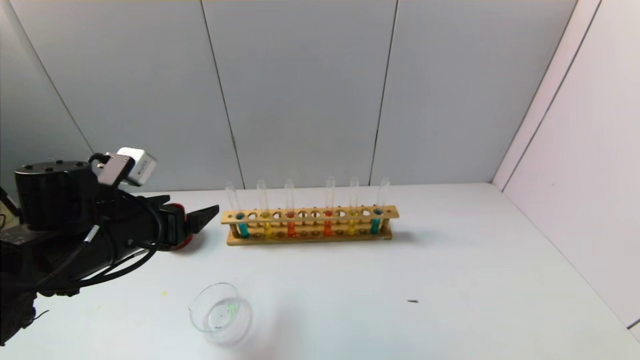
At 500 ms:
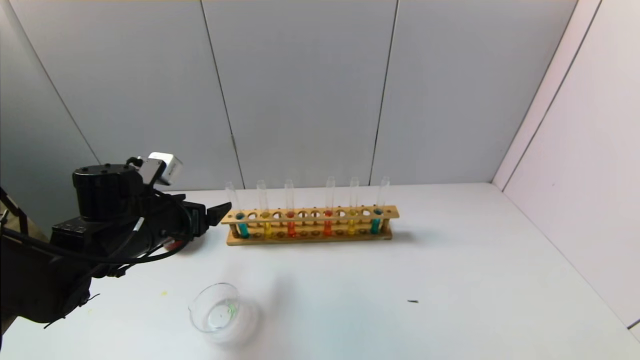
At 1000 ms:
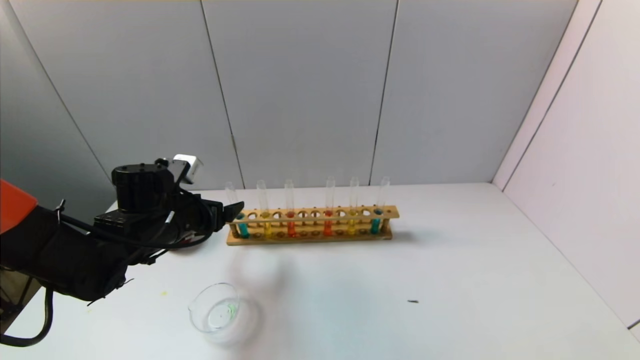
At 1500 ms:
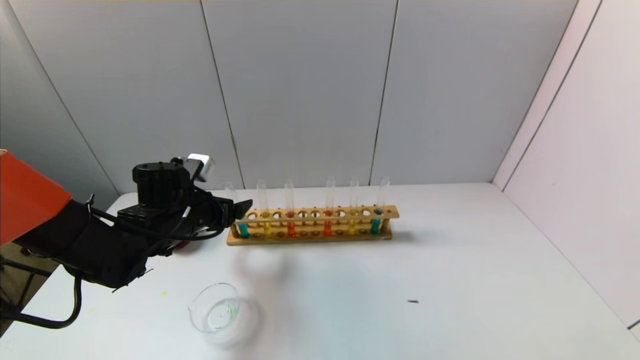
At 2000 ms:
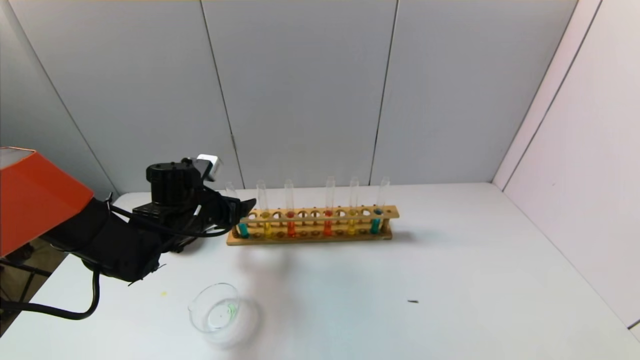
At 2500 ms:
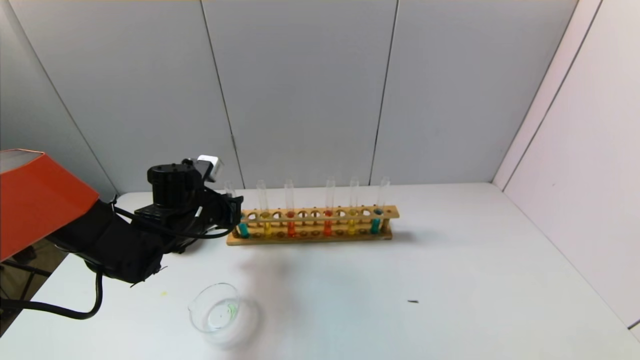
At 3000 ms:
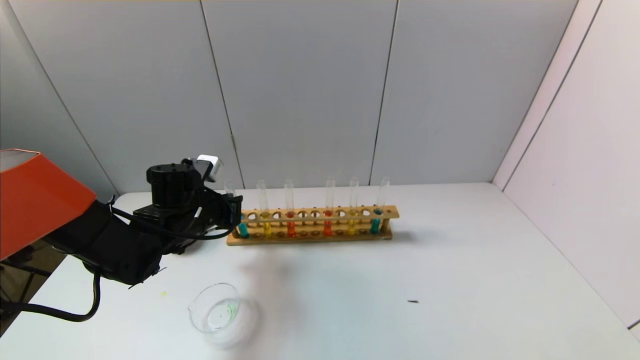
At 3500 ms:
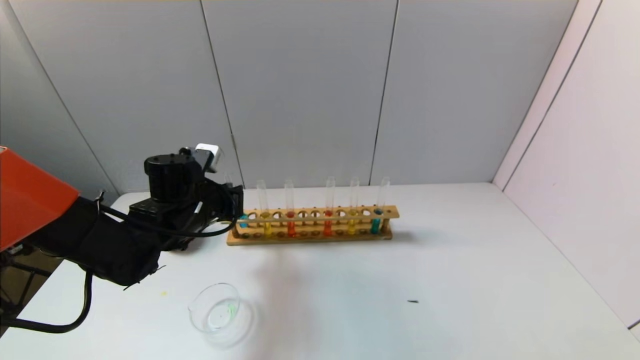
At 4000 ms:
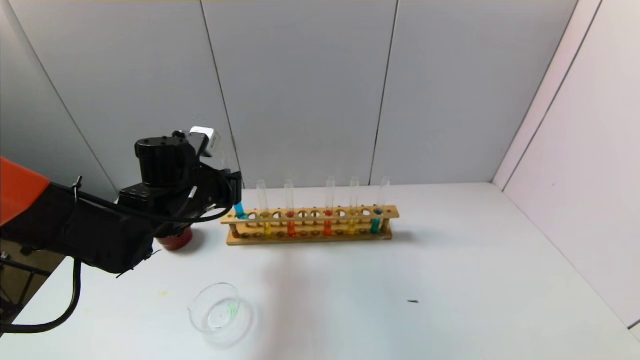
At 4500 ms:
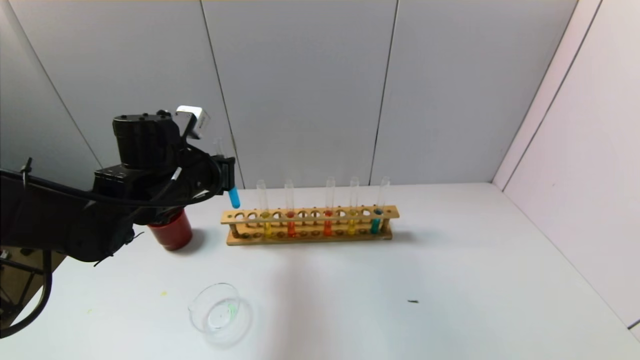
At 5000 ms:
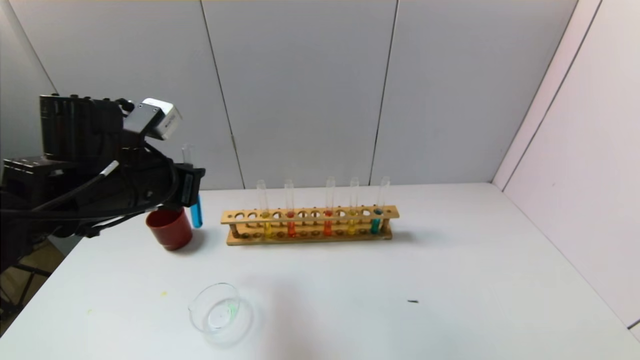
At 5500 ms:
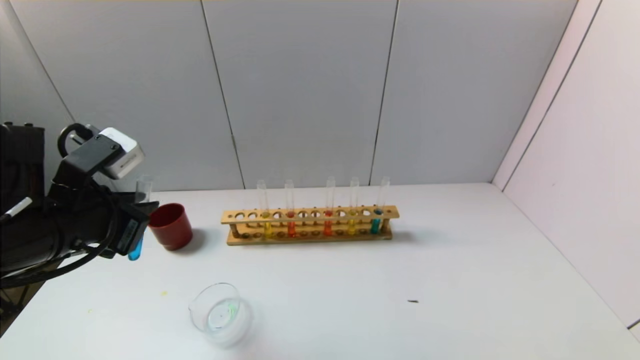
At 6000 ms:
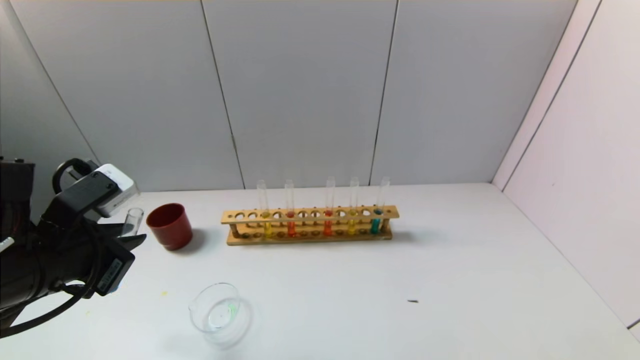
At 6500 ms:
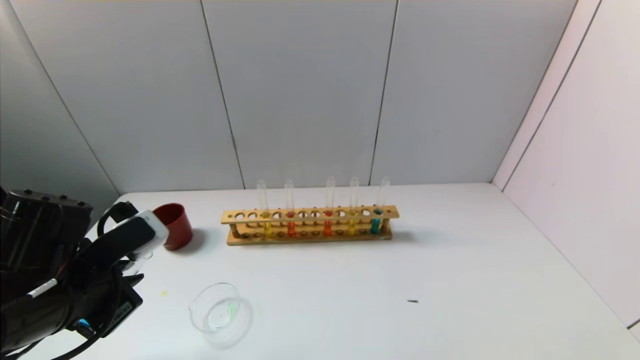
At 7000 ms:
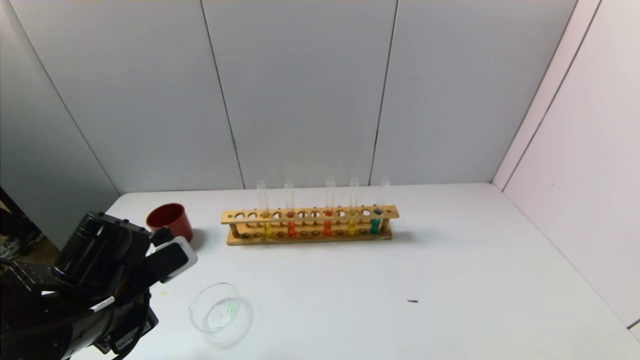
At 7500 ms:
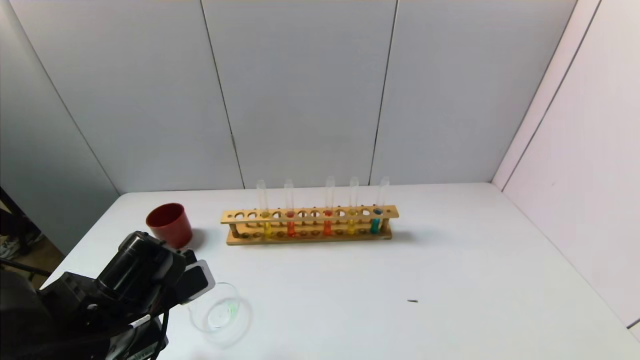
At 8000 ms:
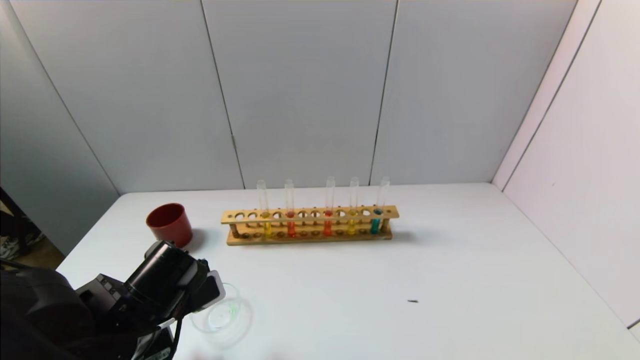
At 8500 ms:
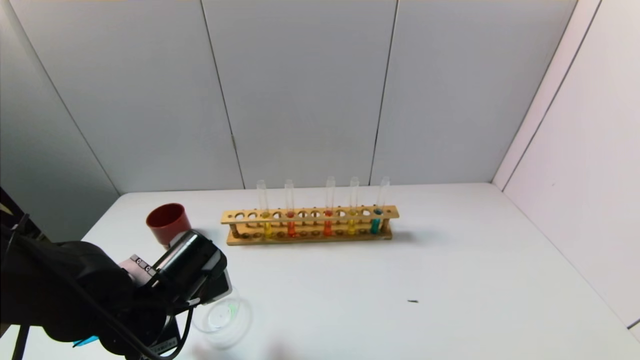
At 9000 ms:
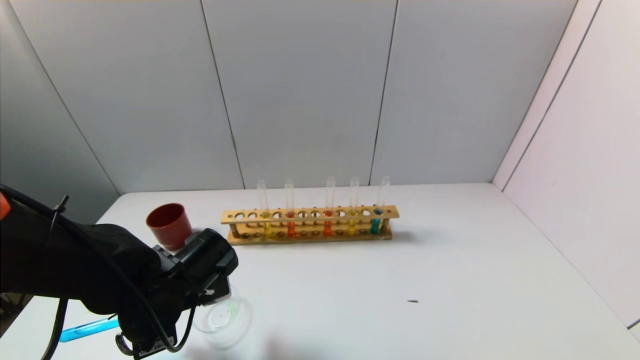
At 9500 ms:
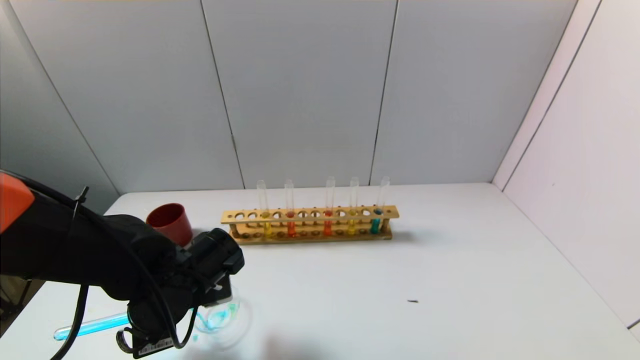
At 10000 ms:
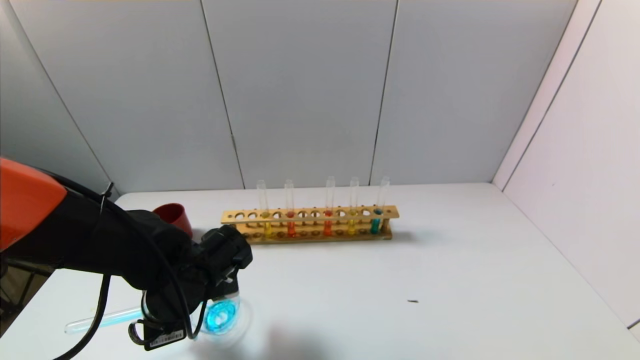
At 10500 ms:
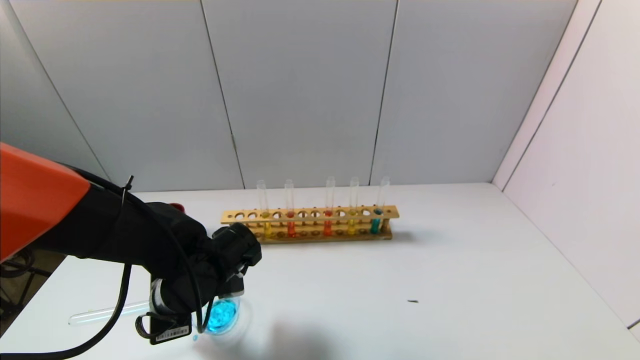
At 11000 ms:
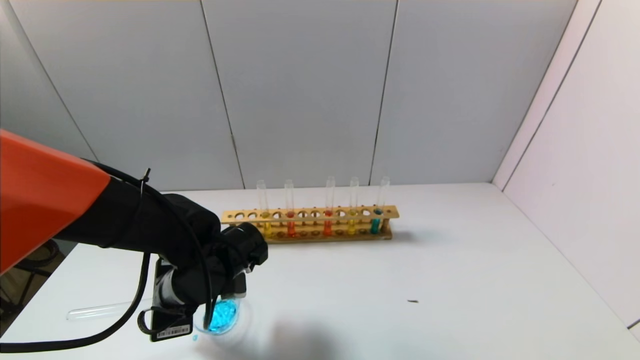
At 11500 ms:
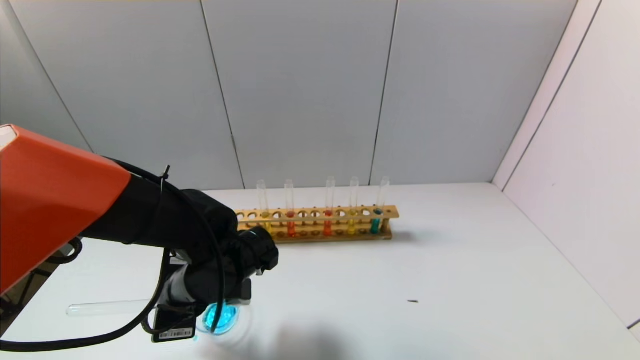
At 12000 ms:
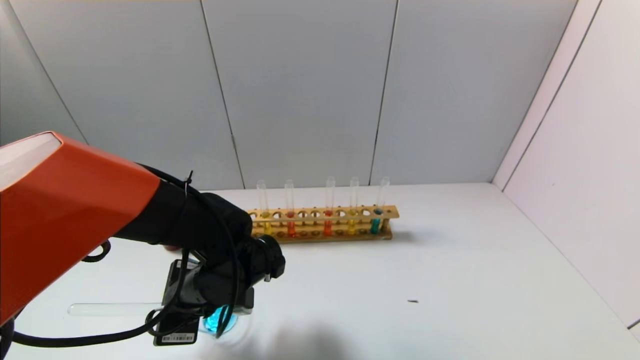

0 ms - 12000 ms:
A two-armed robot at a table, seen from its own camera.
Task of the whole recording: pick up the test tube with yellow pigment and the test tube with blue pigment by grippers and pour them into the beaker.
Step, 0 ms - 2500 ms: Grasp the blue reagent with the left gripper.
0 ms - 2000 ms: The left gripper shifts roughly 10 cm forward and downward.
2000 ms - 4000 ms: The left gripper is displaced upward by roughly 5 cm, and closes.
4000 ms - 6000 ms: The left gripper is displaced backward and to the left by some 15 cm.
6000 ms - 8000 ms: The left gripper travels downward and to the right by approximately 10 cm.
8000 ms - 10000 ms: The left gripper changes place by roughly 5 cm.
10000 ms - 12000 ms: There are only small adjustments of the grippers.

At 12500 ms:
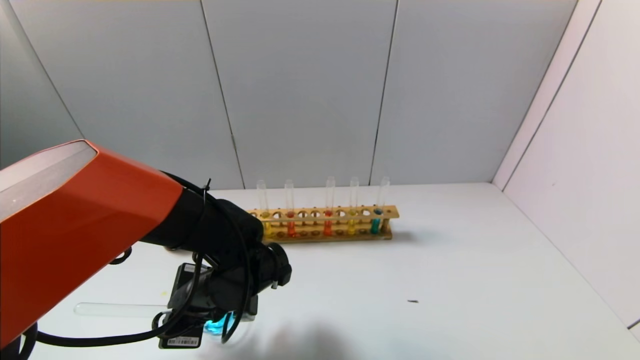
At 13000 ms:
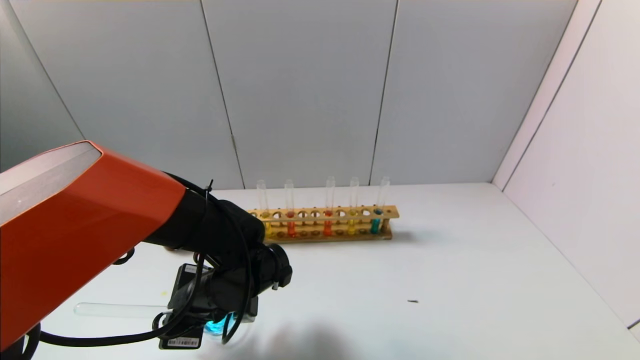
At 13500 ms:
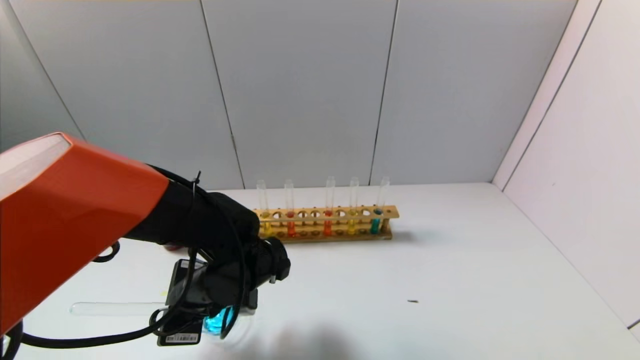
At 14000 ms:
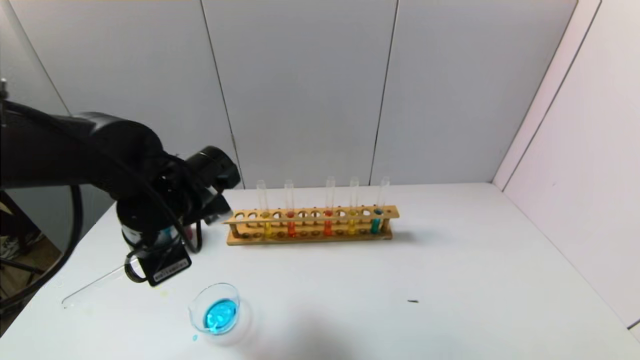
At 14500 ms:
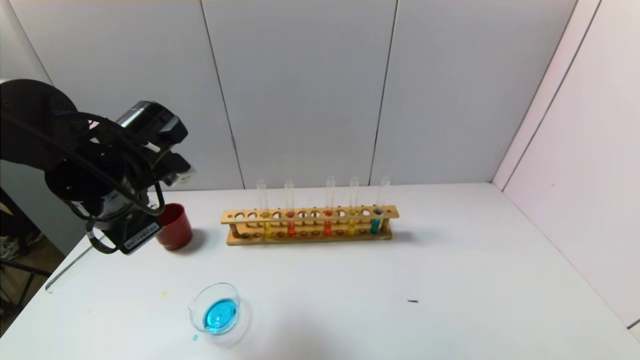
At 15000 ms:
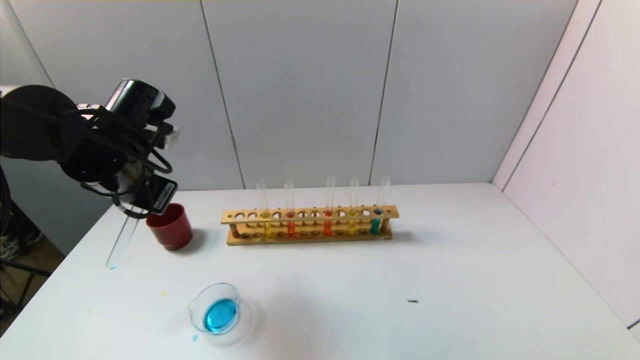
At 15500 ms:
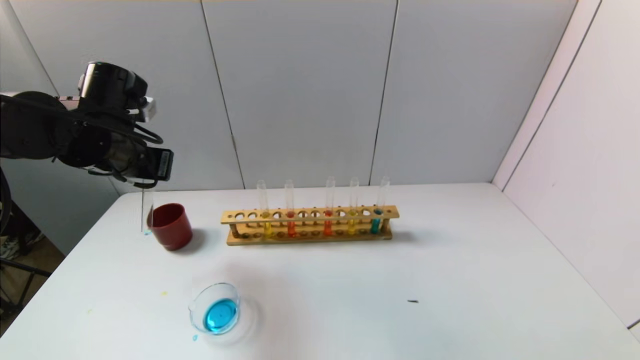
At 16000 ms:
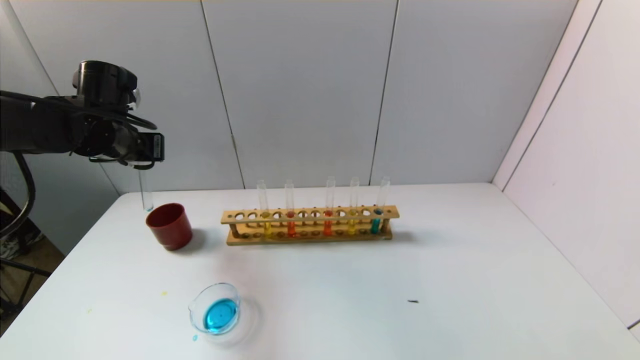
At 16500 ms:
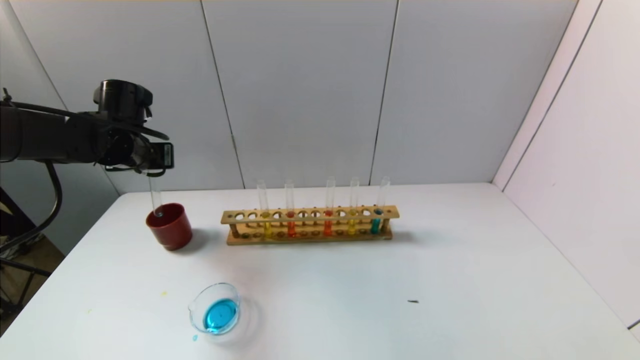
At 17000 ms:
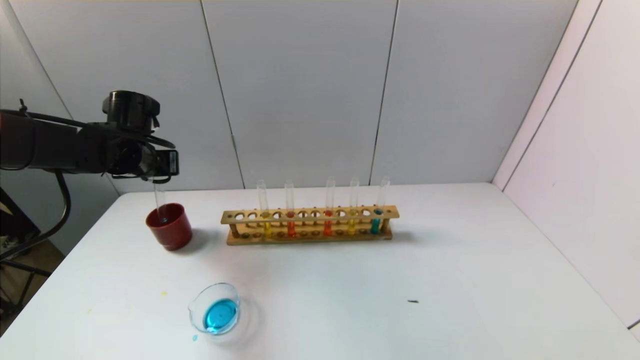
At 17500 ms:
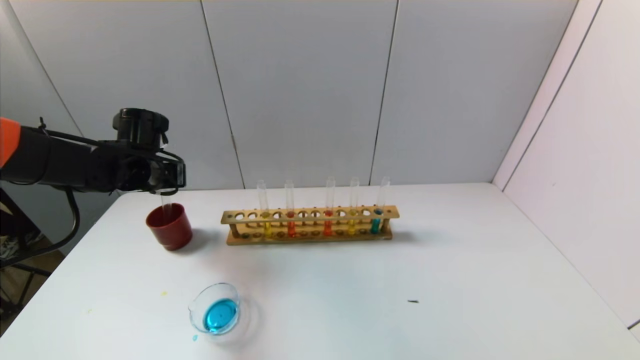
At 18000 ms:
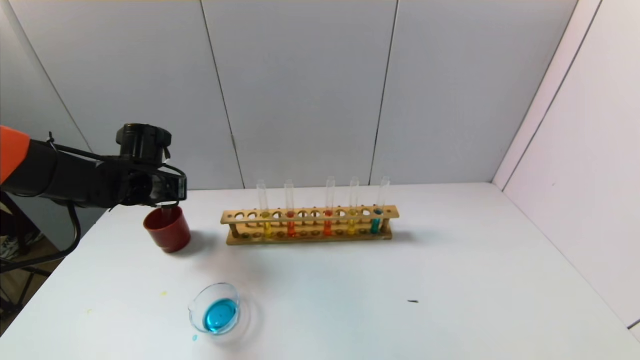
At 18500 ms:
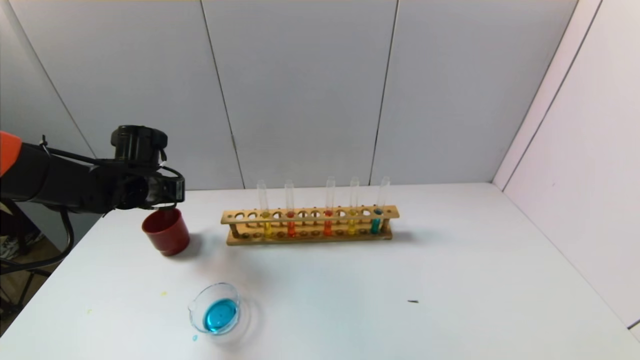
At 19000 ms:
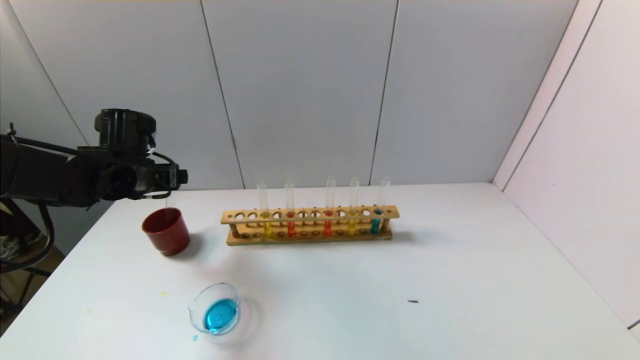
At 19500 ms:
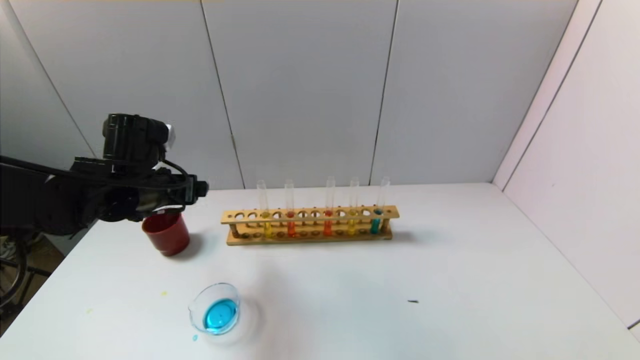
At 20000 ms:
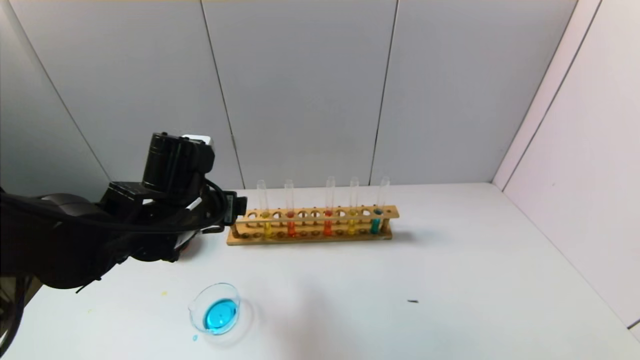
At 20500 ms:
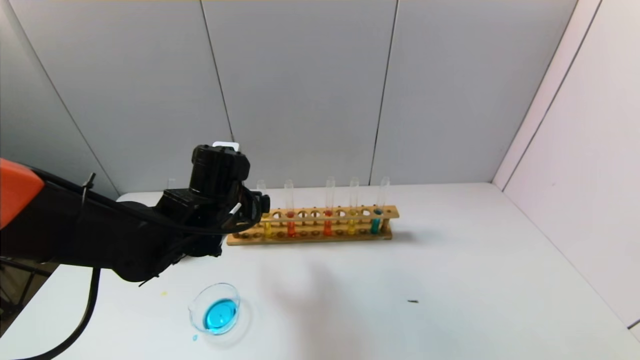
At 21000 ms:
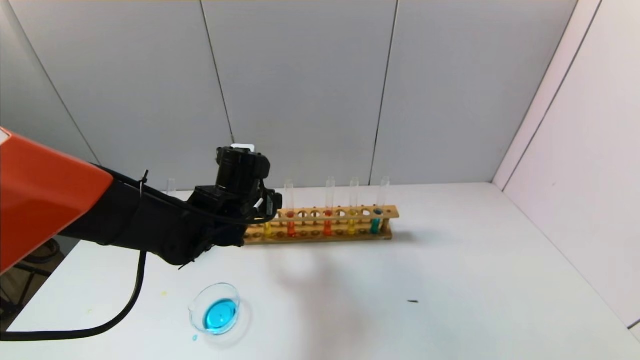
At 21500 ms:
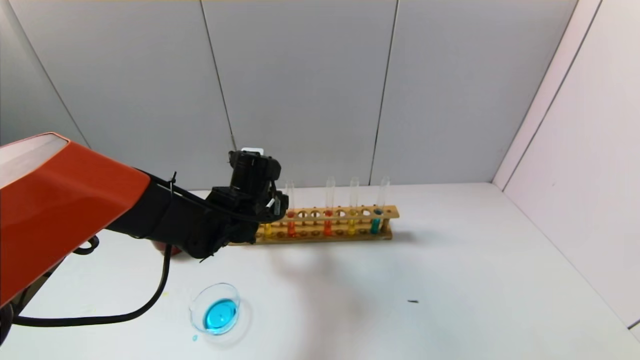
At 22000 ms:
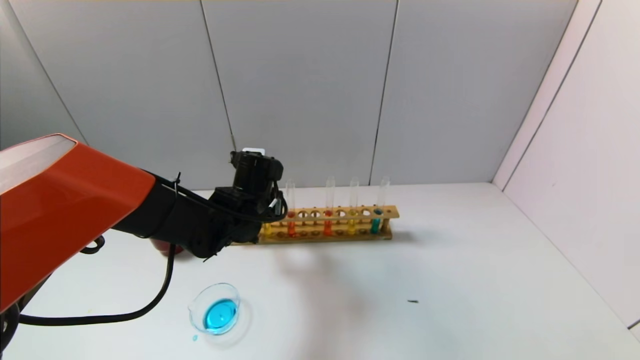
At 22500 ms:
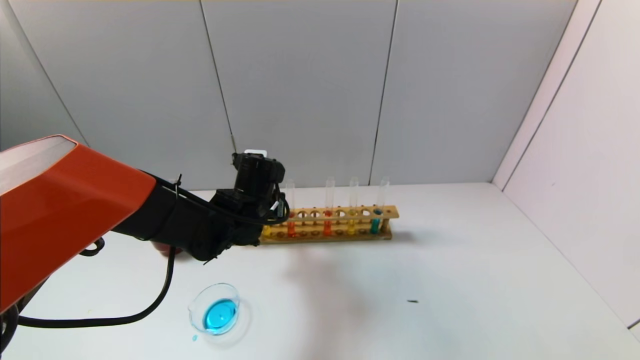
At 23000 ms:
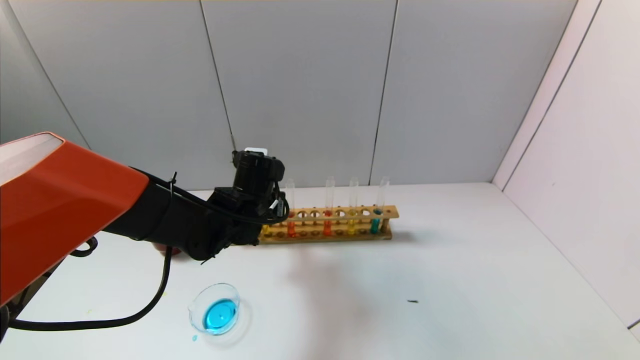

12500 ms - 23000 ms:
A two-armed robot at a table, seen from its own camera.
Task of the whole recording: pick up the test tube with yellow pigment and the test tube with blue pigment by grippers and pour them into the beaker.
Step, 14000 ms - 18500 ms: Place the test tube into the brown cup with the left gripper.
Step, 19000 ms - 22500 ms: Grasp the yellow reagent with the left gripper.
12500 ms - 14500 ms: The left gripper shifts some 20 cm upward and to the left.
14500 ms - 16500 ms: The left gripper shifts about 15 cm forward and to the left.
16500 ms - 19000 ms: The left gripper opens.
19000 ms - 21000 ms: The left gripper heads to the right, covering some 15 cm.
21000 ms - 23000 ms: The left gripper closes up.
